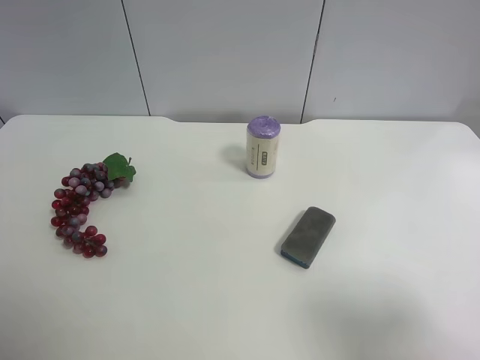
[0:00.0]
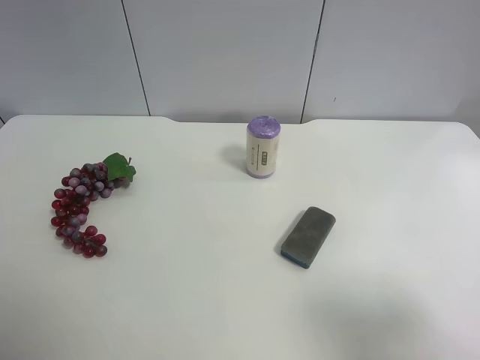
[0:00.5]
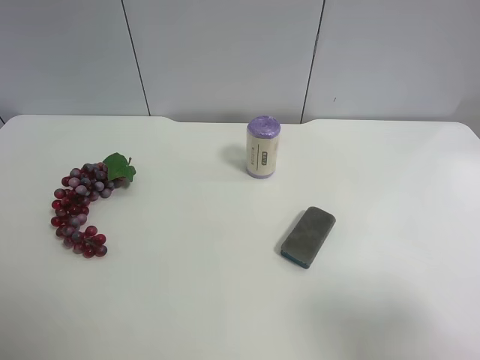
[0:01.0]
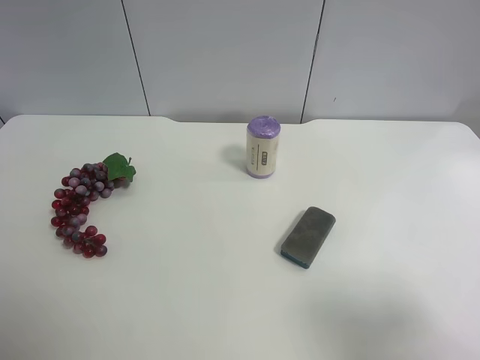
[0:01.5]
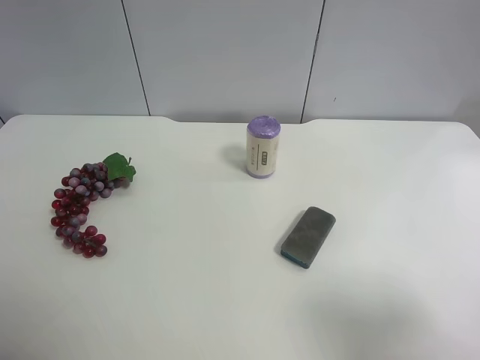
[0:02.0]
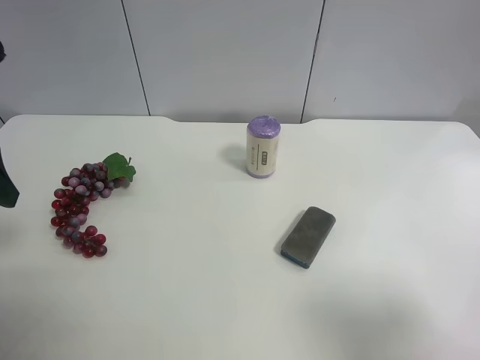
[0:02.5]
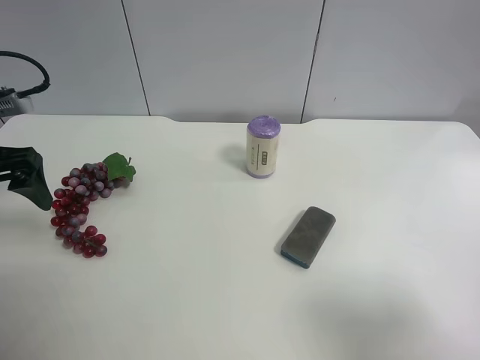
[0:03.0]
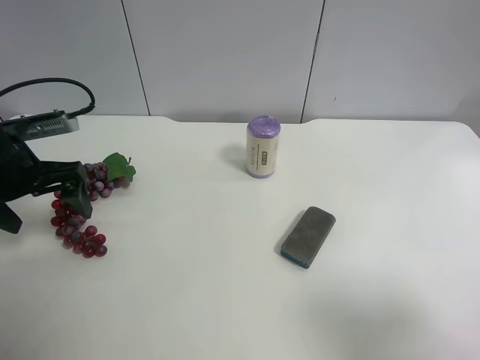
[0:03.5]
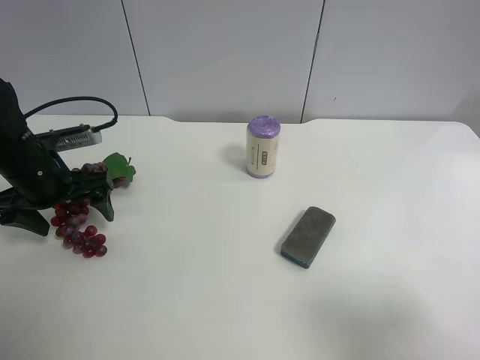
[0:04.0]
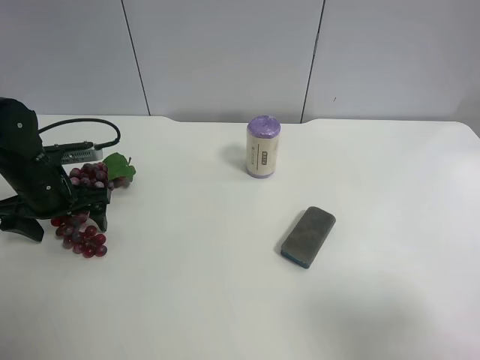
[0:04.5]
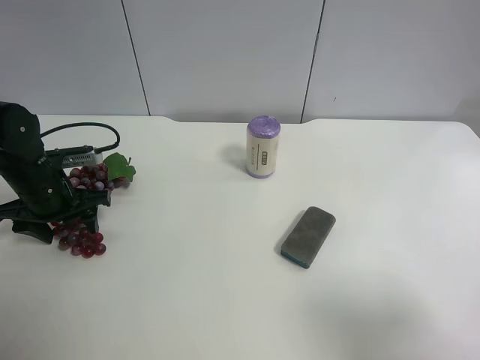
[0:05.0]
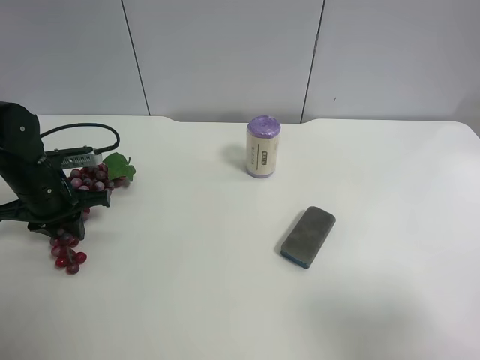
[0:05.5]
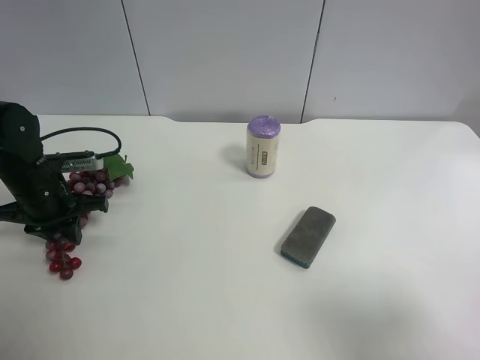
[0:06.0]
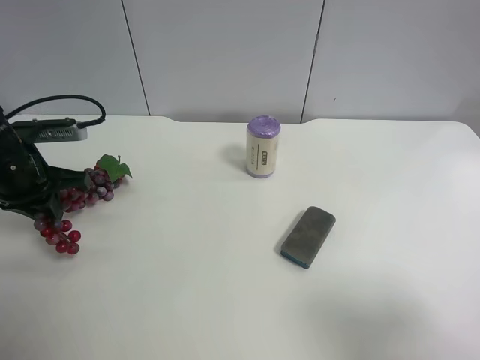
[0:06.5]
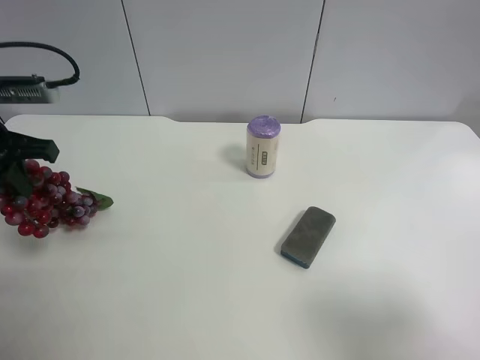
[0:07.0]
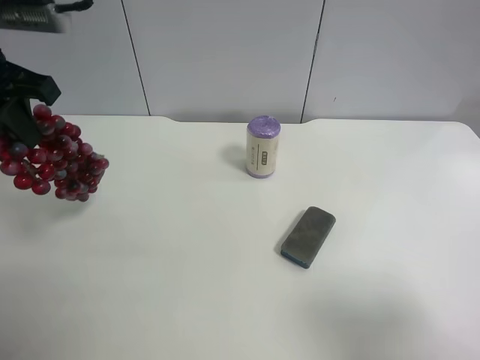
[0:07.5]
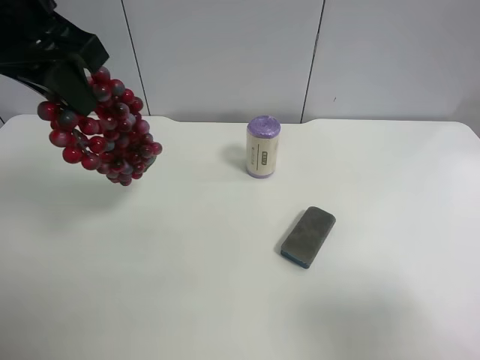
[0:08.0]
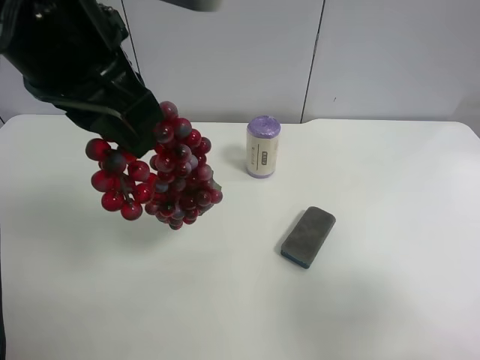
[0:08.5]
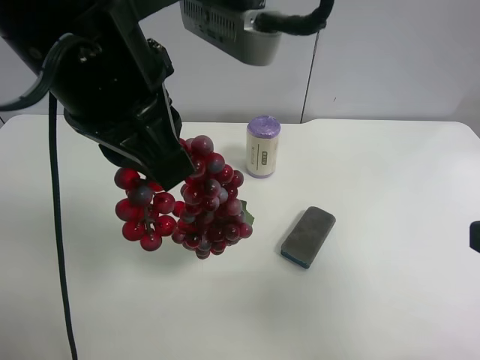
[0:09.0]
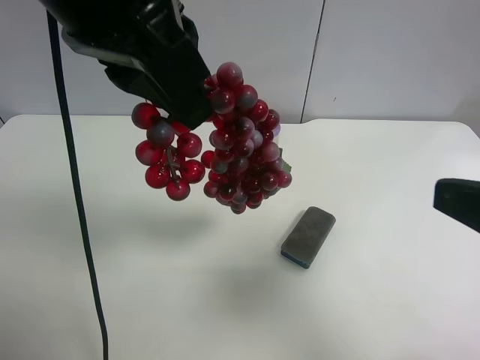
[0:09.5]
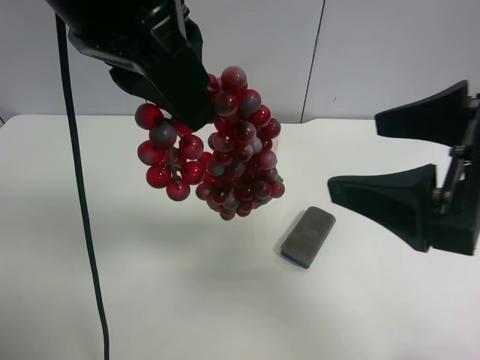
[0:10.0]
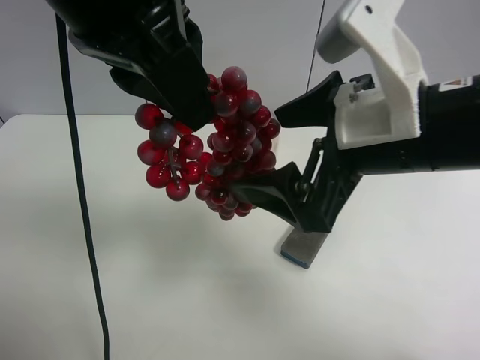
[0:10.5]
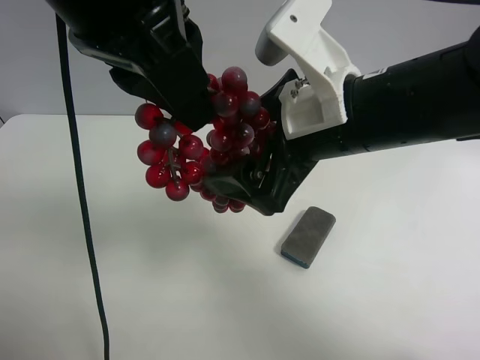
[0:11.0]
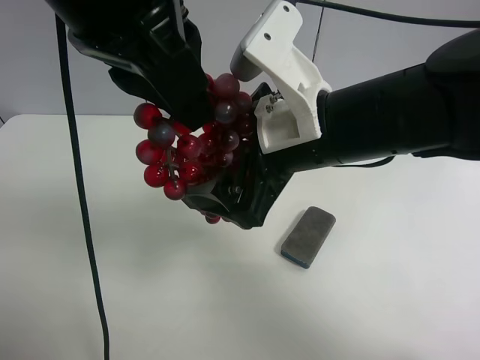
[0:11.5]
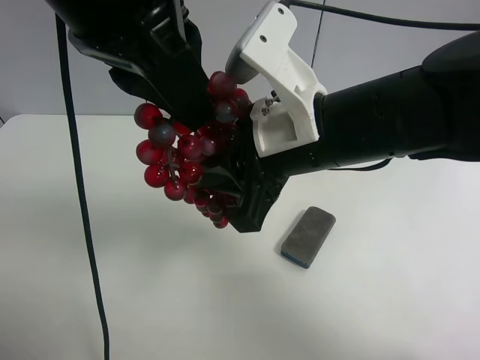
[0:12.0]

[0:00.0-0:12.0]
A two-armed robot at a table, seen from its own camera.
Task of the whole recording: use the left gripper to pick up the item and transfer it from the left gripper to the right gripper.
0:02.0 to 0:04.0: The left gripper shifts roughly 25 cm forward and downward.
0:04.0 to 0:06.0: The left gripper closes its fingers.
0:06.0 to 0:08.0: The left gripper travels upward and to the right by approximately 30 cm.
0:08.0 to 0:10.0: The left gripper goes some 10 cm to the right and backward. Meanwhile the right gripper heads forward and to the left, covering roughly 15 cm.
0:10.0 to 0:12.0: The right gripper travels to the left and forward by some 15 cm, and closes its fingers.

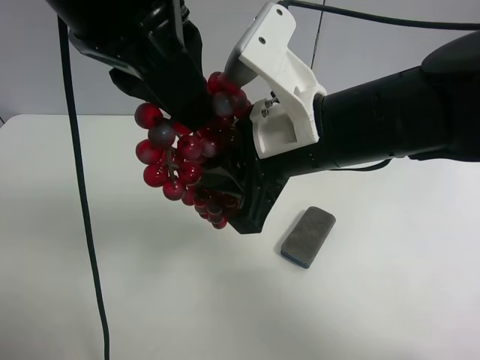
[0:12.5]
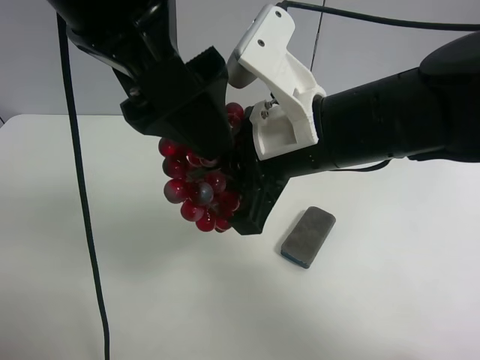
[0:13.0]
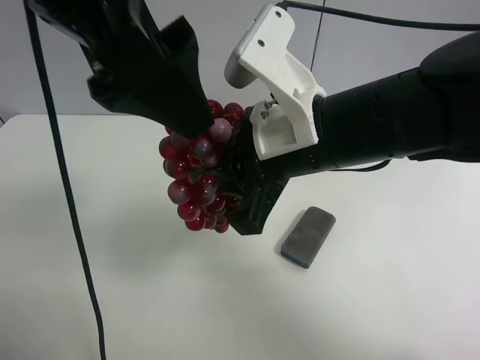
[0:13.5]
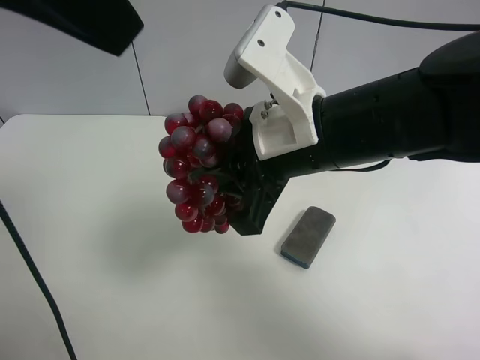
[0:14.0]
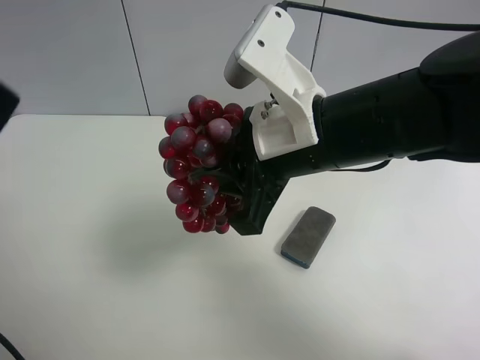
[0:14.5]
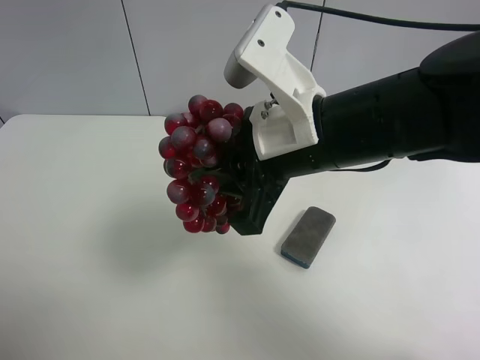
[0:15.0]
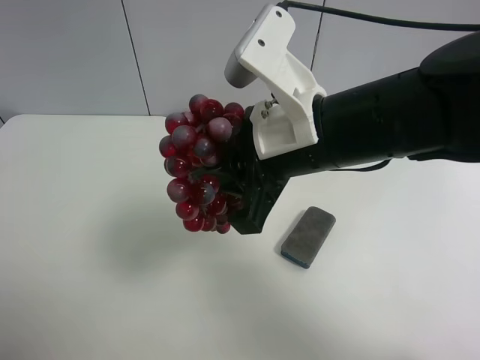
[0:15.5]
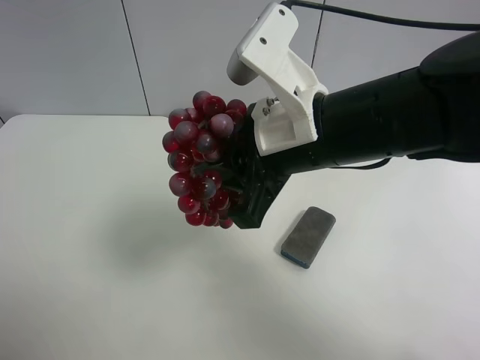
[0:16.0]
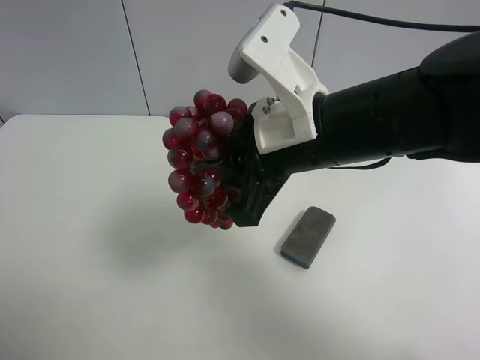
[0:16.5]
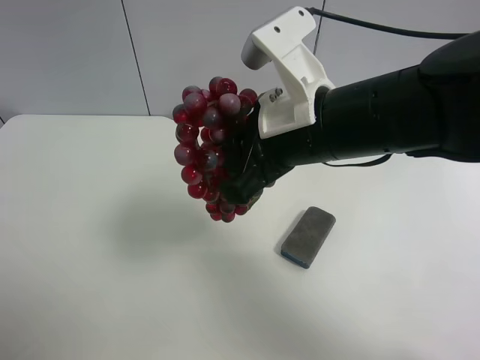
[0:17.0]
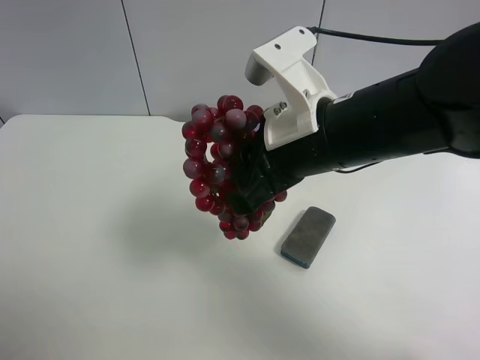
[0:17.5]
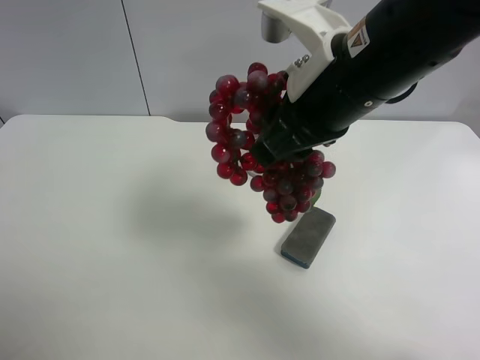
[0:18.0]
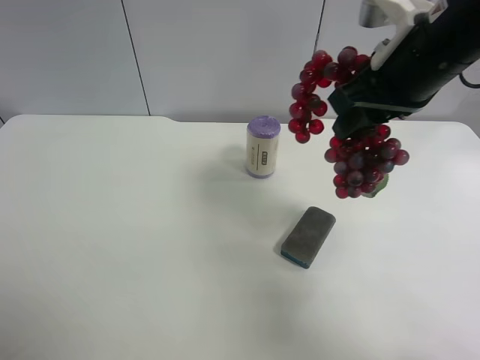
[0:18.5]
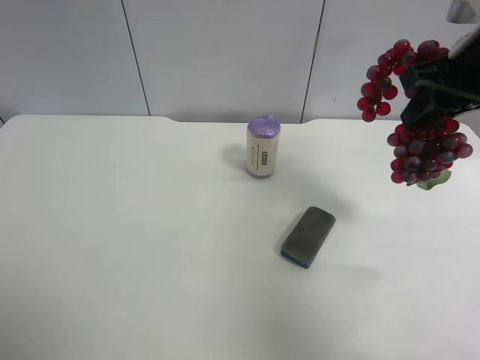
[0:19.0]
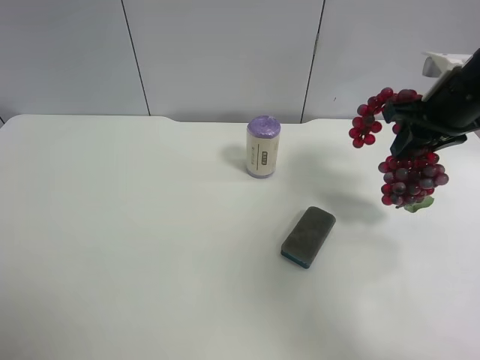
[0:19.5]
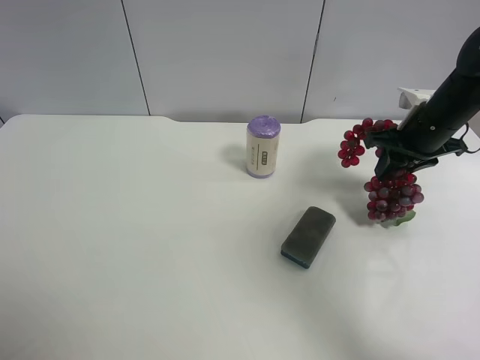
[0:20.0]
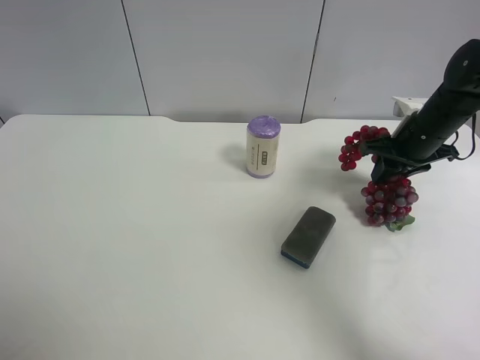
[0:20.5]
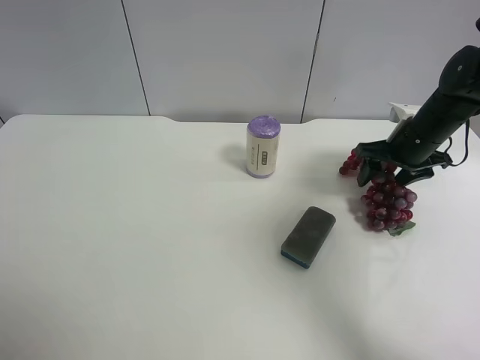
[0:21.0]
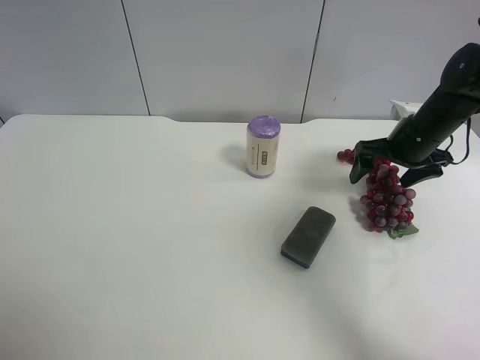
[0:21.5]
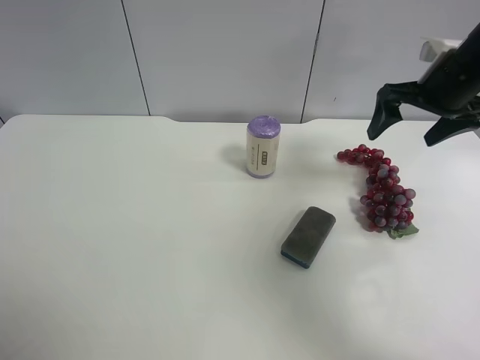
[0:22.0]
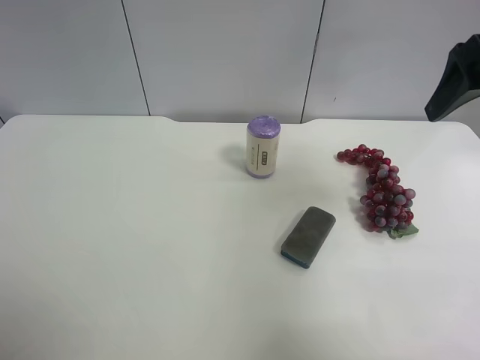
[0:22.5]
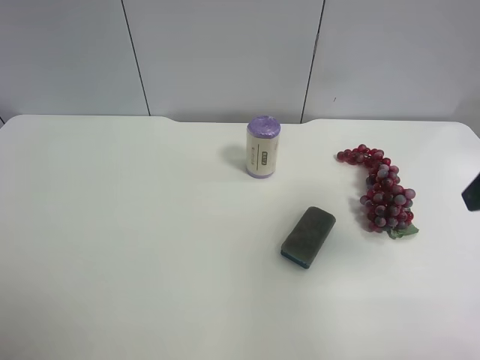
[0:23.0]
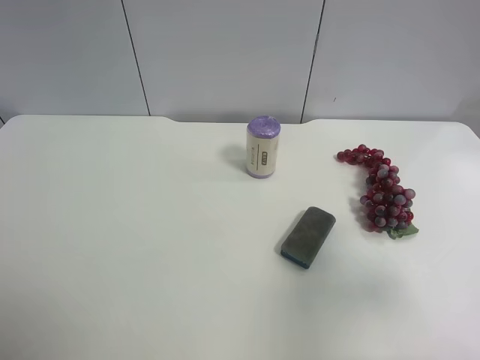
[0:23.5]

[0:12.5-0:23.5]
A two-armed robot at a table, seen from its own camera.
Task of the whole recording: use the left gripper to pick up the item and transfer it from the left gripper to the right gripper.
0:12.5 to 0:14.5: The left gripper goes about 15 cm to the left and backward, and opens up.
0:14.5 to 0:16.0: The left gripper travels downward, to the left and backward by some 20 cm.
0:16.0 to 0:18.0: The right gripper moves about 5 cm.
0:18.0 to 0:20.0: The right gripper goes roughly 30 cm to the right, forward and downward.
0:20.0 to 0:21.5: The right gripper opens its fingers.
0:21.5 to 0:23.5: The right gripper heads backward and upward, covering roughly 30 cm.

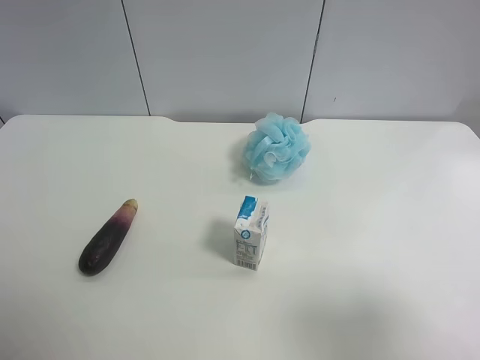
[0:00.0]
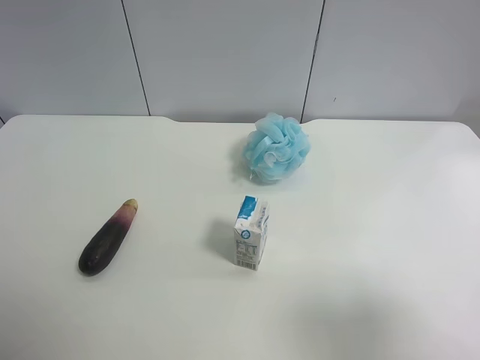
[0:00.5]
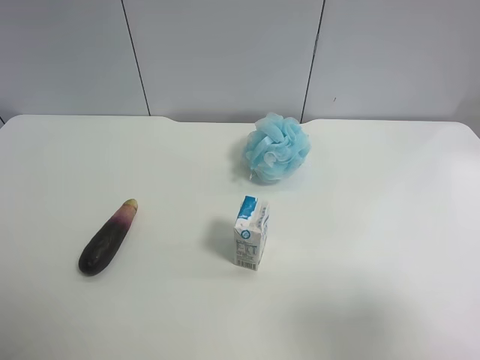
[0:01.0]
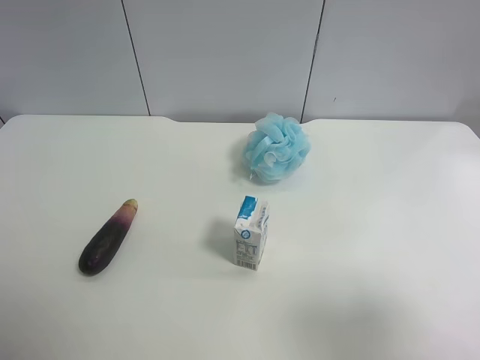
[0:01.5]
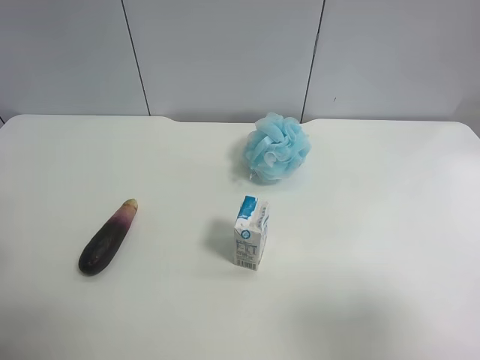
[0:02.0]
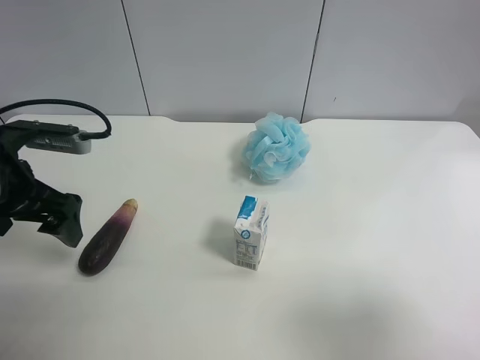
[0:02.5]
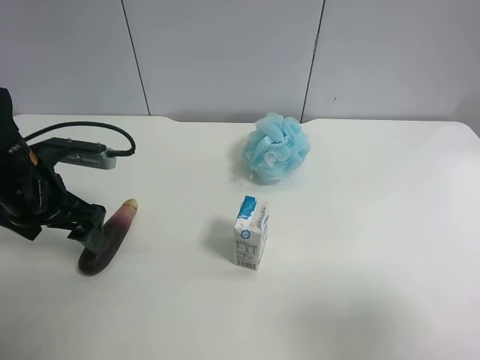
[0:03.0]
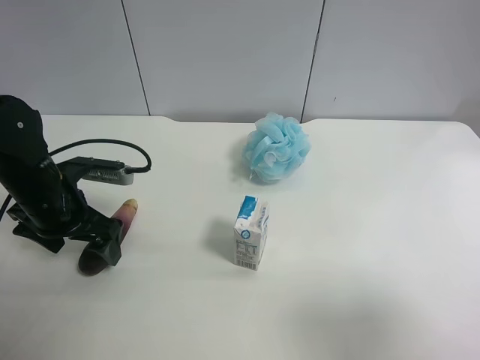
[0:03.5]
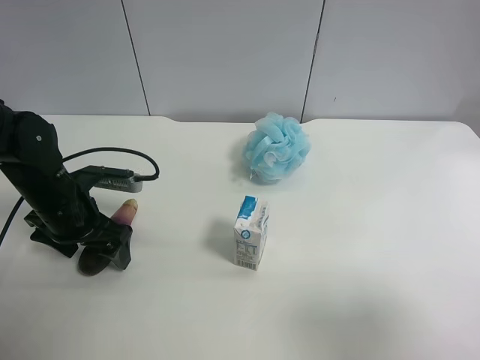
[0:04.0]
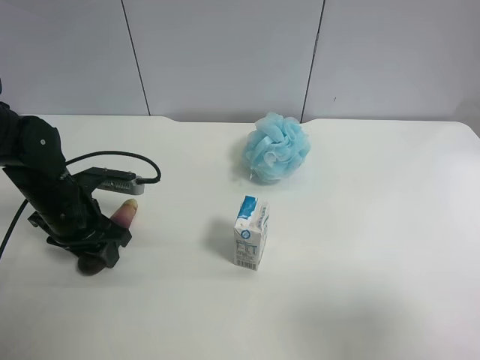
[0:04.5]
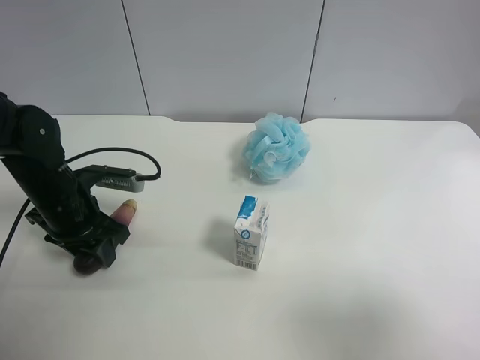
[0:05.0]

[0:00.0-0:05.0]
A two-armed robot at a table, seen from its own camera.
Task of the whole recording: use the left gripper to pick up the item and transfer it from the left gripper to the right gripper.
0:00.0 to 0:02.5: The left gripper travels forward by approximately 25 cm.
0:02.5 to 0:05.0: The left gripper goes some 10 cm downward, and closes up.
